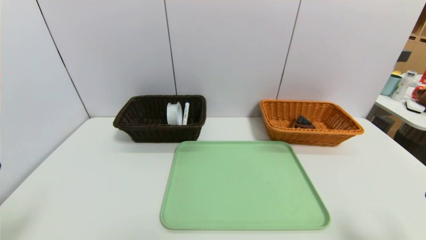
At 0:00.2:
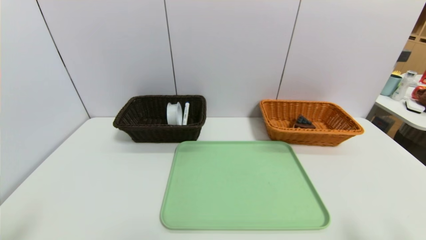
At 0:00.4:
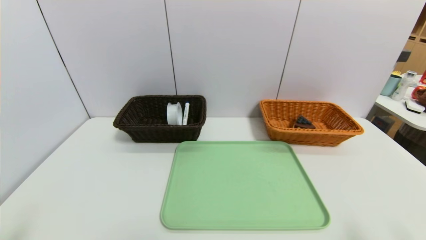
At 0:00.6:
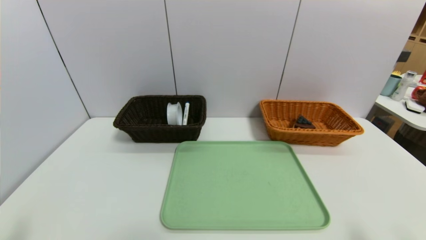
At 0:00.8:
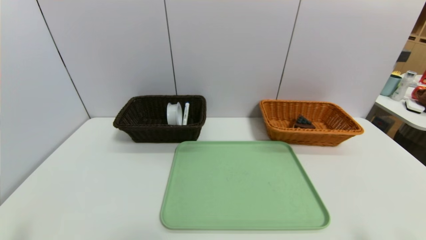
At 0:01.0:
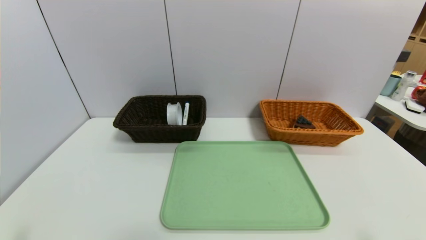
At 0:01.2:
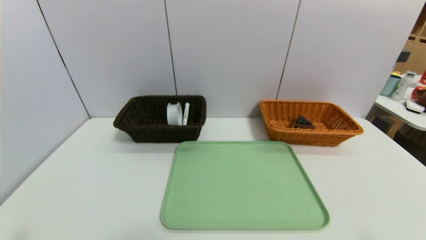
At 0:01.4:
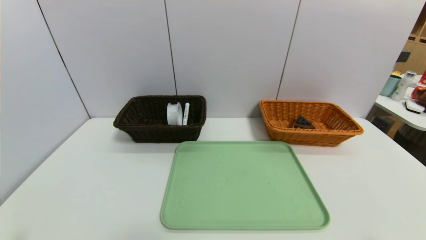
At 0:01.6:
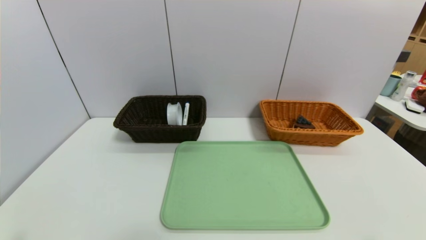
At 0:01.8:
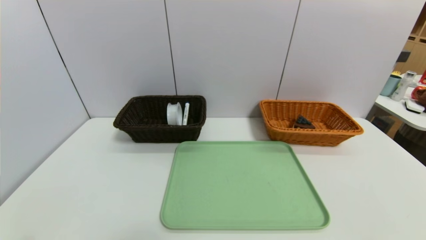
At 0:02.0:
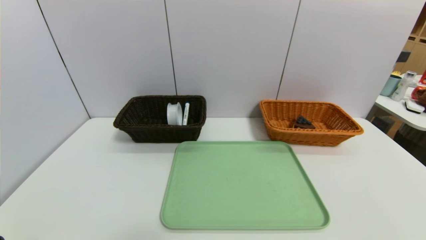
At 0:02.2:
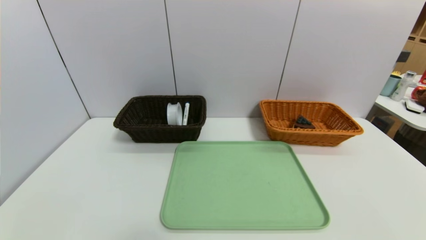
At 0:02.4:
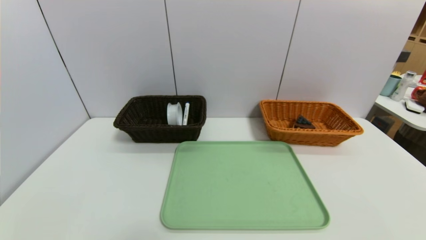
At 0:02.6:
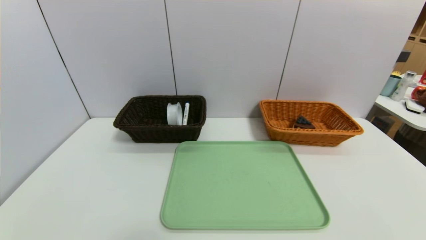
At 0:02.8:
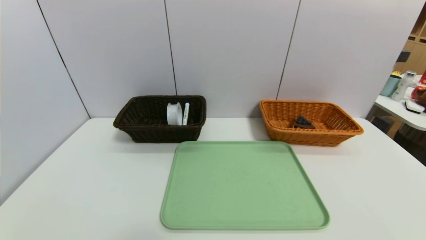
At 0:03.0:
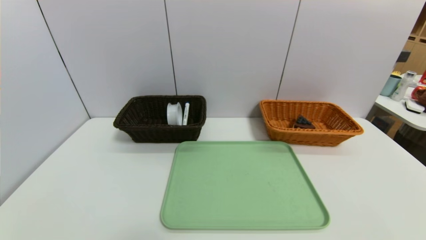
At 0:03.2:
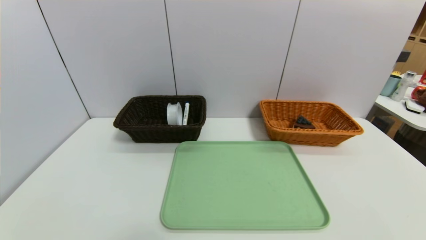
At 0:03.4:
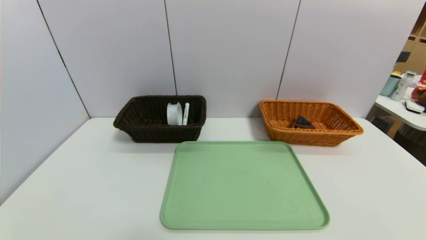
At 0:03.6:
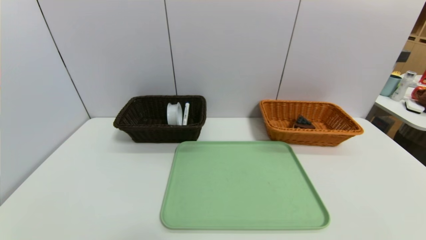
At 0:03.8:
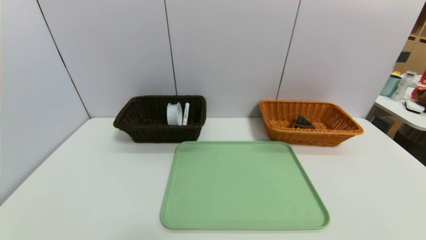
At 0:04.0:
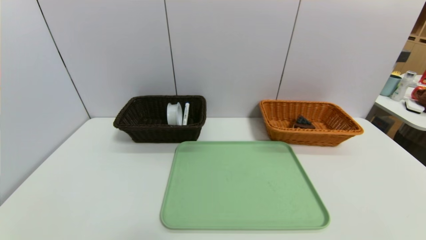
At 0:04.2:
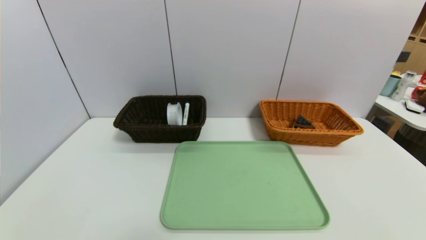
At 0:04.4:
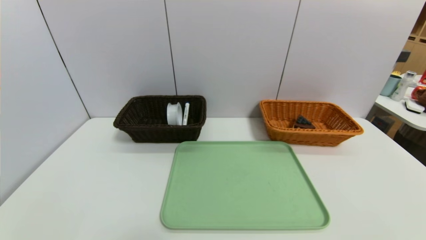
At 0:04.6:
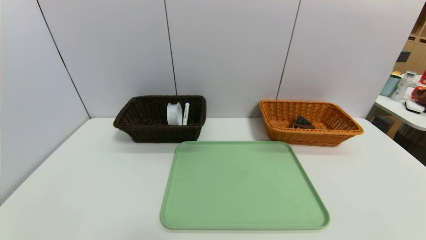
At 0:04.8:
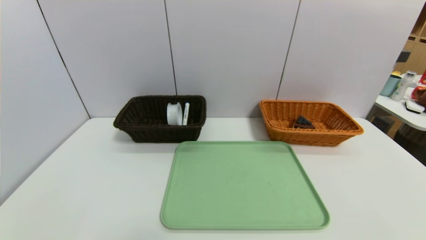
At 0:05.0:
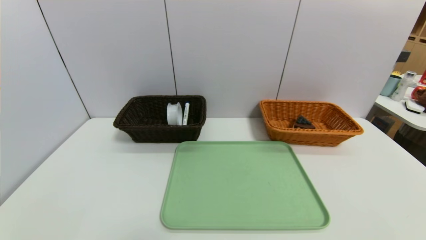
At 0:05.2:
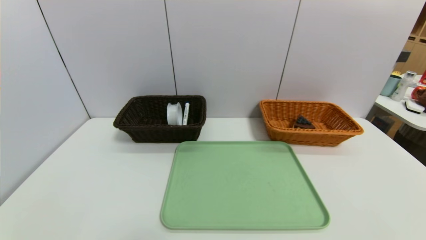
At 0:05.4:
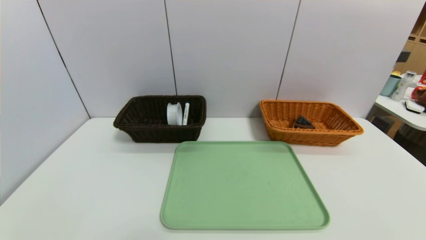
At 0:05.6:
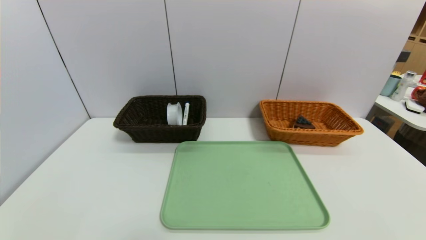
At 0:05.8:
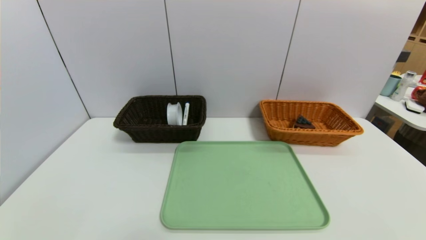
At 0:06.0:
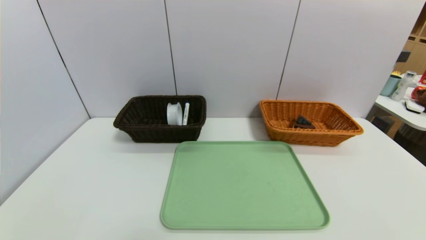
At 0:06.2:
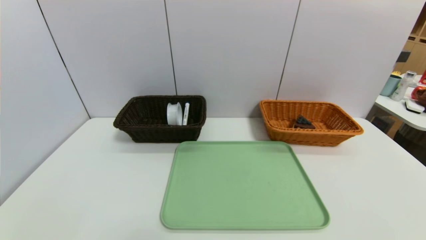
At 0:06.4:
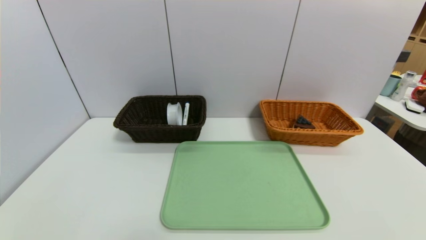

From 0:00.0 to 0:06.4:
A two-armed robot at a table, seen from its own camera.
Task of the whole recording: place the food in the right basket with the right gripper, and place the non food items in the left basket with the left gripper.
From 0:00.0 to 0:01.6: The right gripper is displaced downward and backward by about 10 cm.
From 0:04.8 to 0:06.4: Both grippers stay about where they are.
